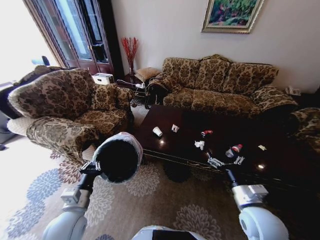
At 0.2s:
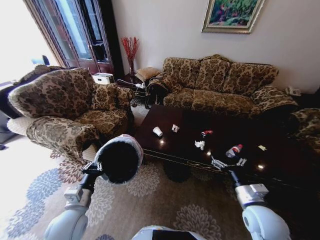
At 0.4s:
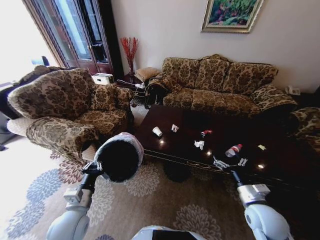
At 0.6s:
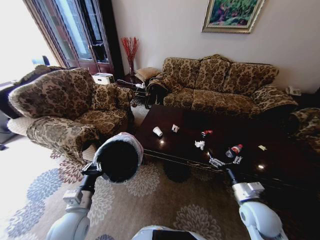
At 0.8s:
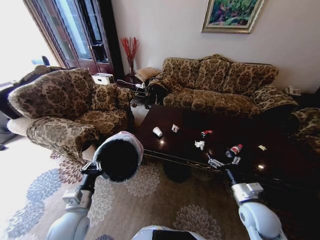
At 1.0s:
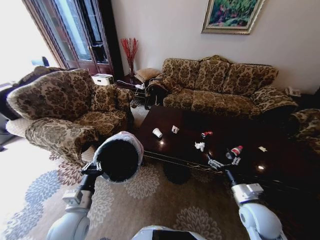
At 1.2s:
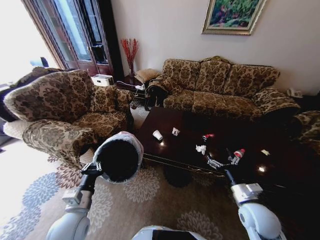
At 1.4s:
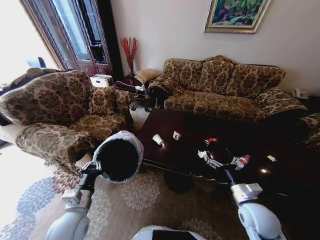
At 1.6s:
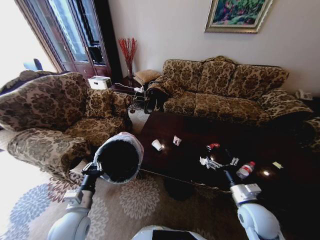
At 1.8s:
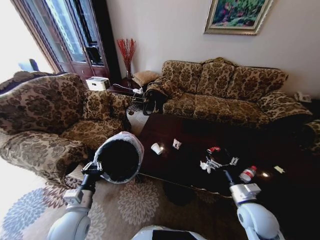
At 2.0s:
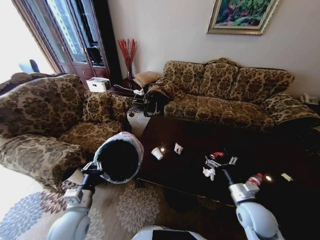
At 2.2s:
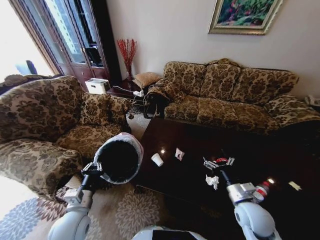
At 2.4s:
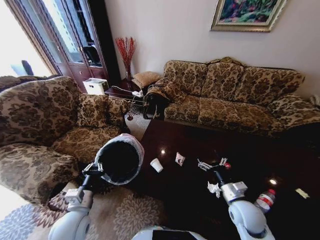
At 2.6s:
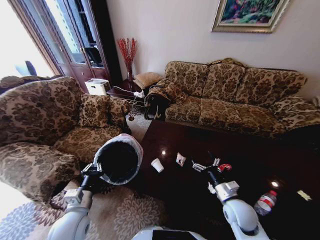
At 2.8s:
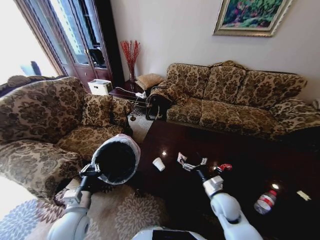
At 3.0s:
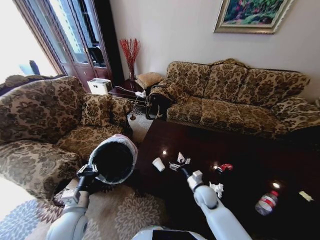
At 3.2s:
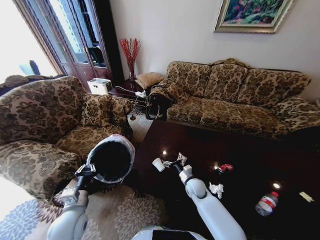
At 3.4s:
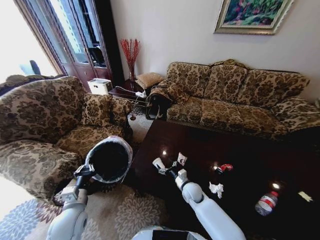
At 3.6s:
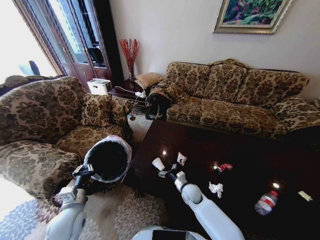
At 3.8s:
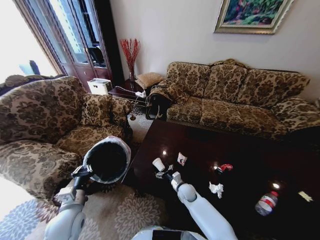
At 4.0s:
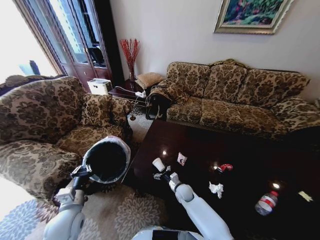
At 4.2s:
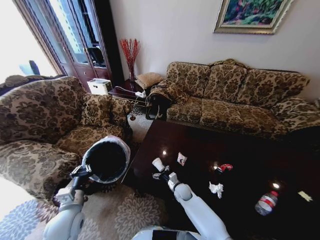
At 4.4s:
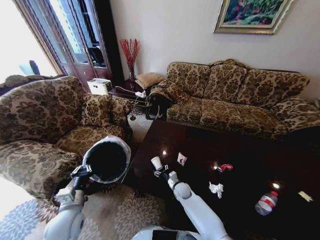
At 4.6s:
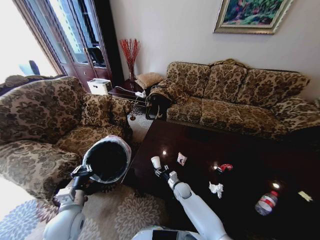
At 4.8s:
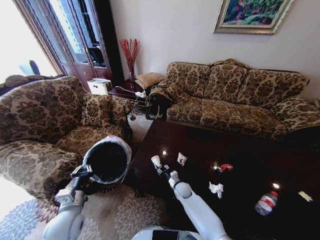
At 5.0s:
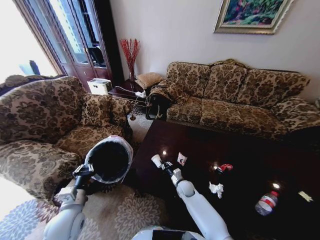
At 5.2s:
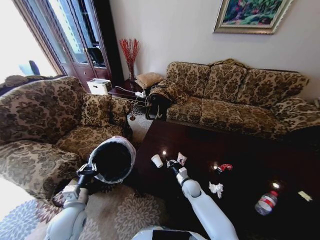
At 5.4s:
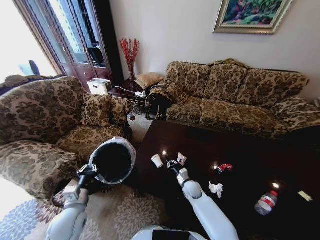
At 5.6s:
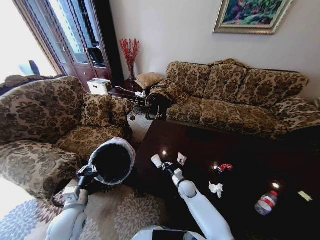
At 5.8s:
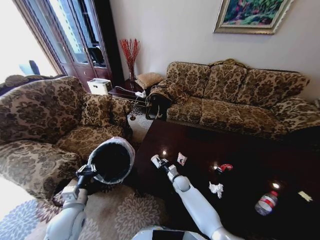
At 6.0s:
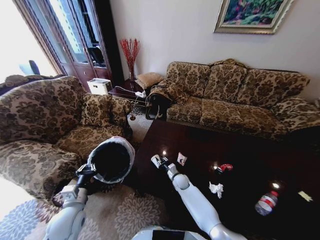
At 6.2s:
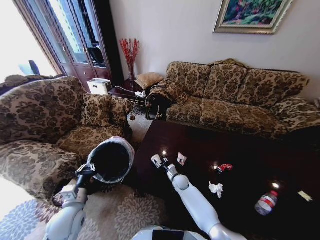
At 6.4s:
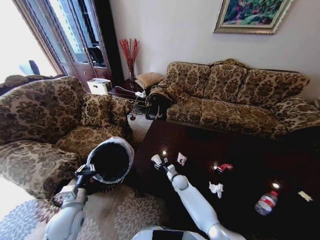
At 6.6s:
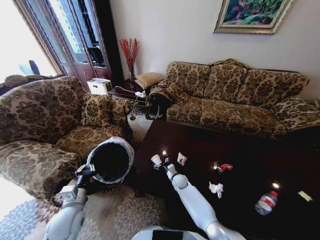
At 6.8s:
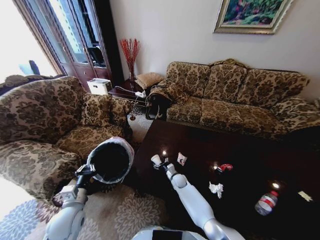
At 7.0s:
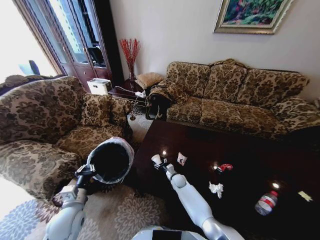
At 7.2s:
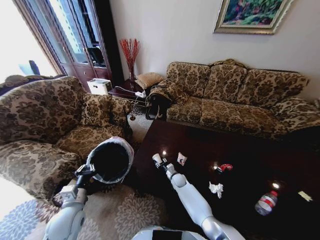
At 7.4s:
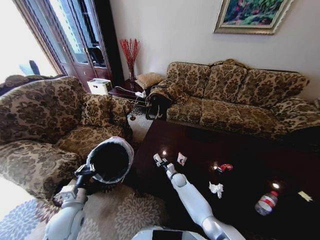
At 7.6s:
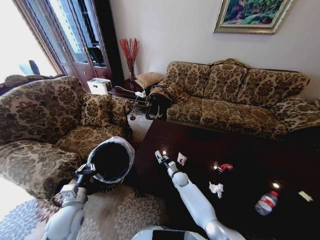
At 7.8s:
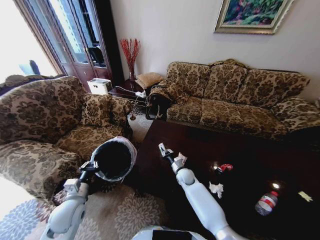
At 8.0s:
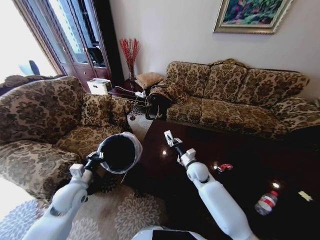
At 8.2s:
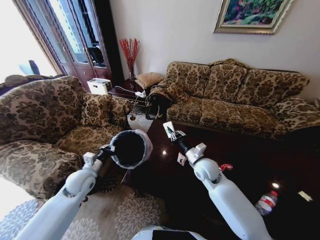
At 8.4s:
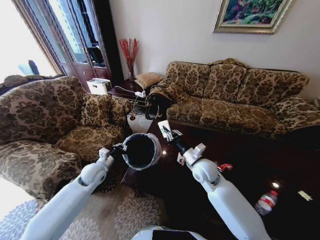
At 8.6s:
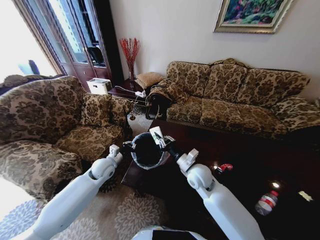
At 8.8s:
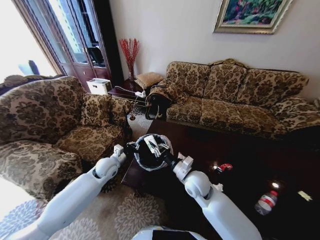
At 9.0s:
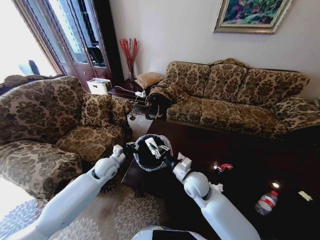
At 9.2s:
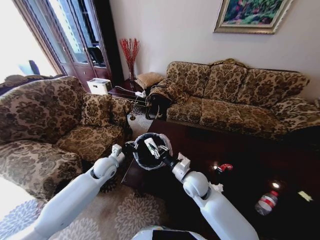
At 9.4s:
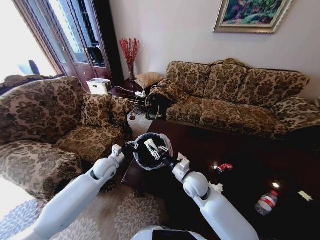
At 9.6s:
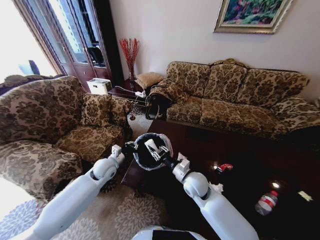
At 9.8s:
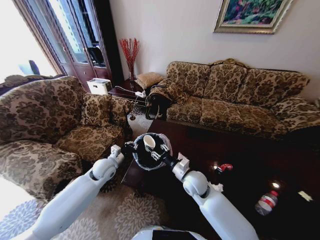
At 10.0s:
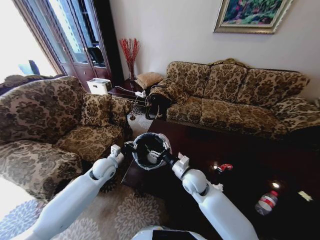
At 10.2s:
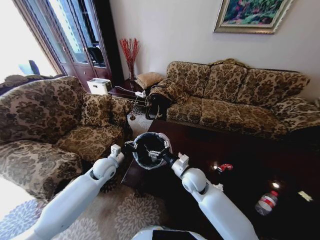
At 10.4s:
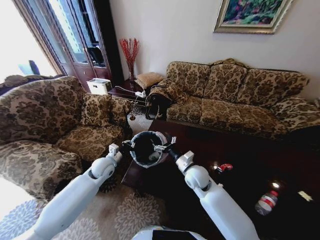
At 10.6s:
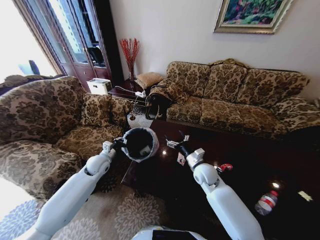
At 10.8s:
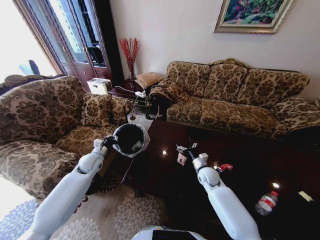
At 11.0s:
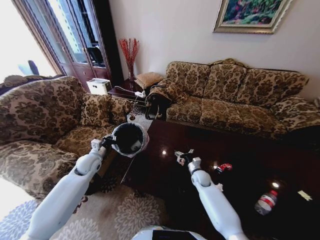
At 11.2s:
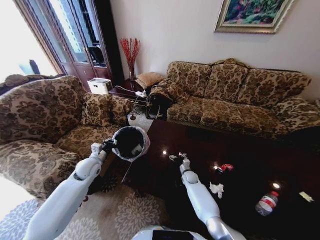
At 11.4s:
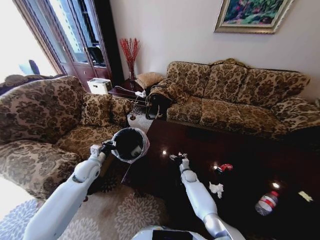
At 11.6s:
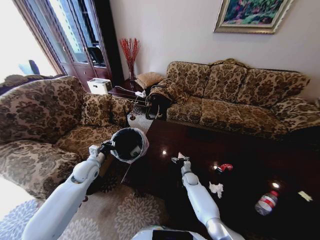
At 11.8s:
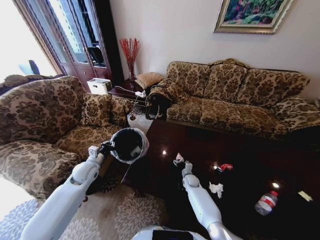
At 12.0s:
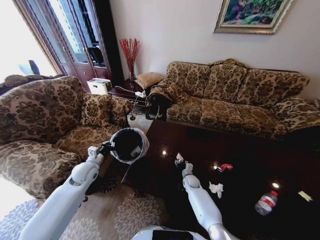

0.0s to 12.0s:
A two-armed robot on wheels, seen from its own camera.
Task of the whole recording: Move to the front of the table and place the trash on the table into the trash bin.
0.0s to 1.6s: The right gripper changes place by about 5 cm.
1.6s to 3.0s: The right gripper travels to the left, downward and forward by approximately 20 cm.
3.0s to 4.4s: The right gripper shifts about 15 cm downward, to the left and forward.
4.4s to 6.0s: The right gripper closes.
6.0s to 7.6s: The right gripper opens, then closes once more.
7.6s to 9.0s: The left gripper goes some 20 cm forward; the right gripper goes approximately 25 cm upward and backward.
9.0s to 10.4s: The right gripper opens up.
10.4s to 12.0s: The left gripper goes roughly 5 cm to the left. The right gripper heads downward, covering about 25 cm.

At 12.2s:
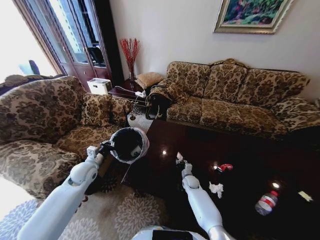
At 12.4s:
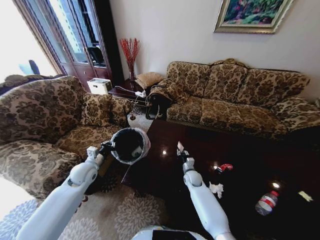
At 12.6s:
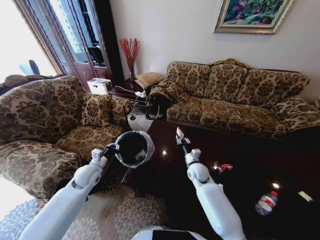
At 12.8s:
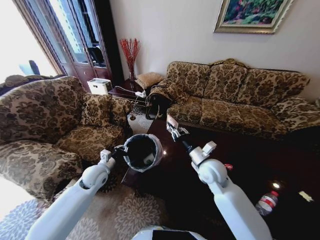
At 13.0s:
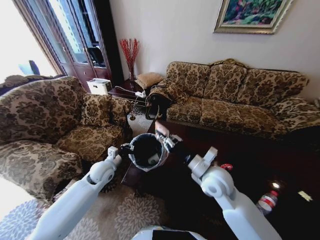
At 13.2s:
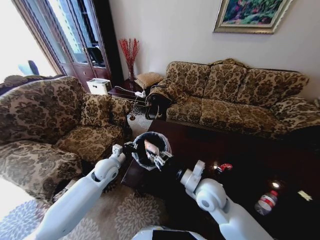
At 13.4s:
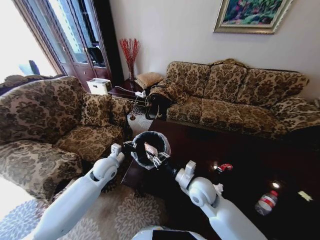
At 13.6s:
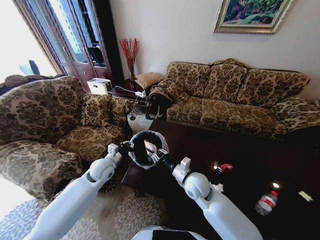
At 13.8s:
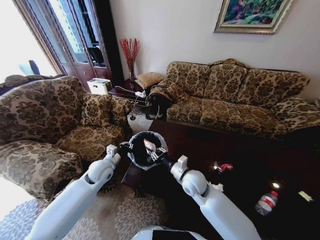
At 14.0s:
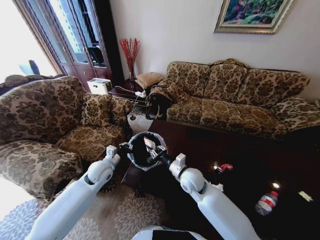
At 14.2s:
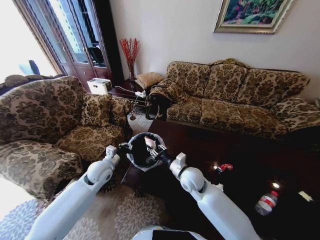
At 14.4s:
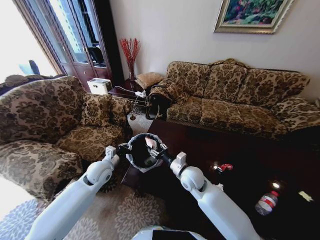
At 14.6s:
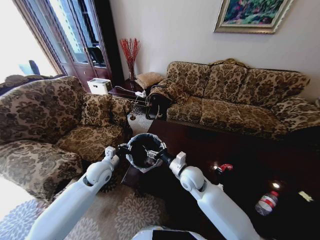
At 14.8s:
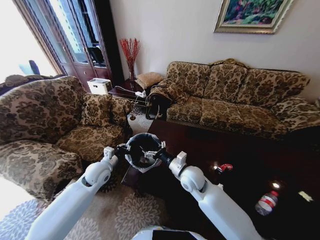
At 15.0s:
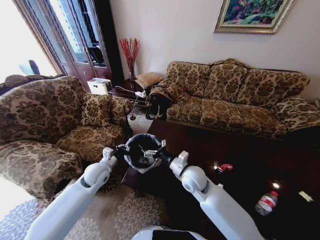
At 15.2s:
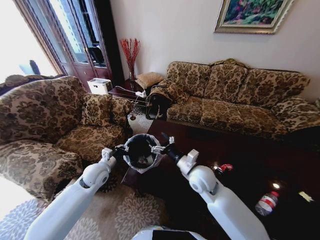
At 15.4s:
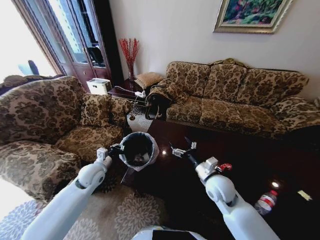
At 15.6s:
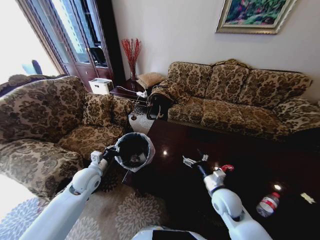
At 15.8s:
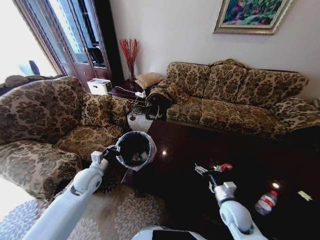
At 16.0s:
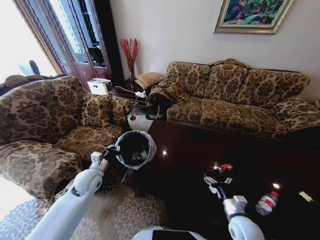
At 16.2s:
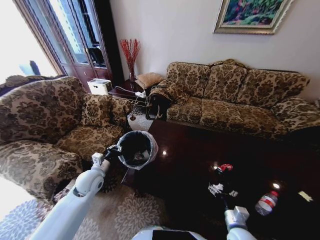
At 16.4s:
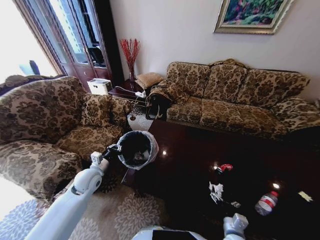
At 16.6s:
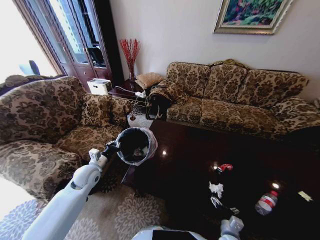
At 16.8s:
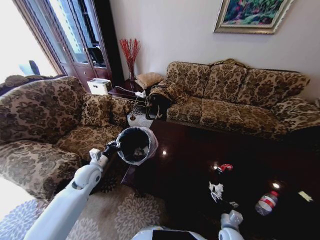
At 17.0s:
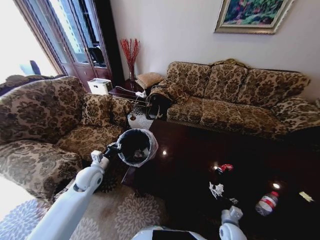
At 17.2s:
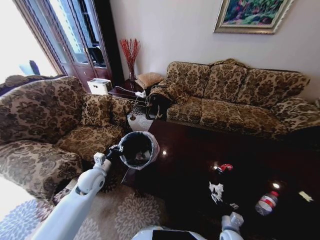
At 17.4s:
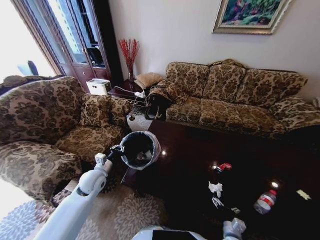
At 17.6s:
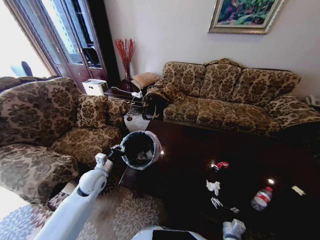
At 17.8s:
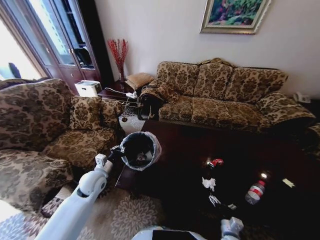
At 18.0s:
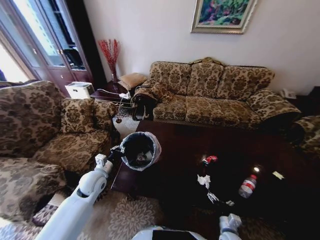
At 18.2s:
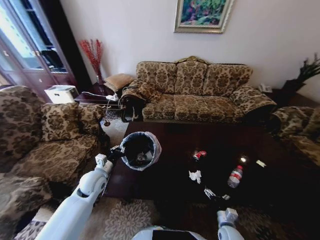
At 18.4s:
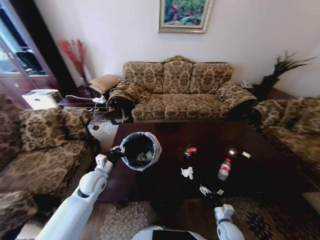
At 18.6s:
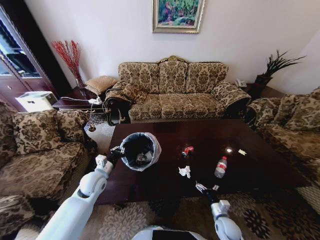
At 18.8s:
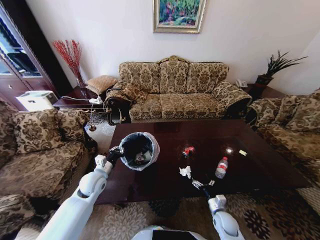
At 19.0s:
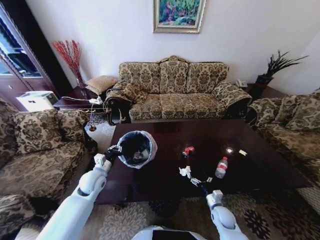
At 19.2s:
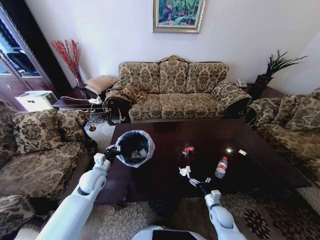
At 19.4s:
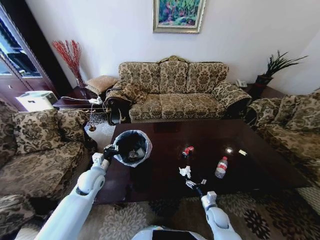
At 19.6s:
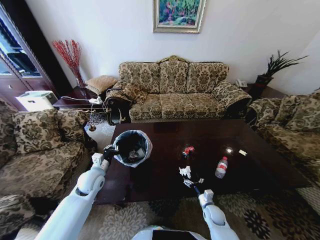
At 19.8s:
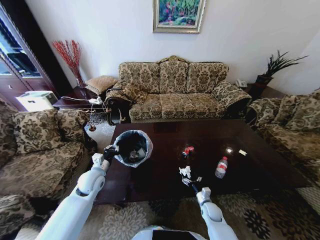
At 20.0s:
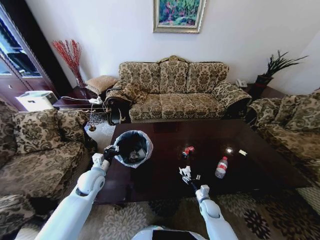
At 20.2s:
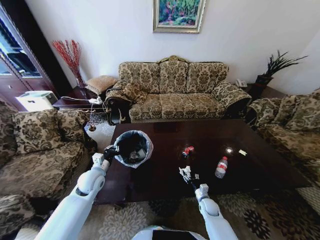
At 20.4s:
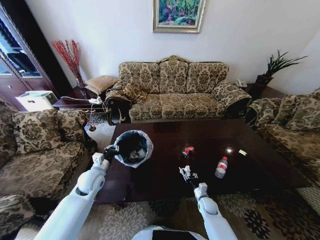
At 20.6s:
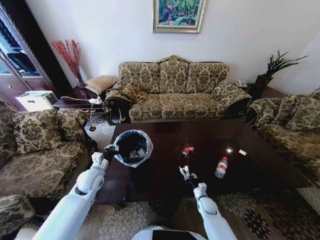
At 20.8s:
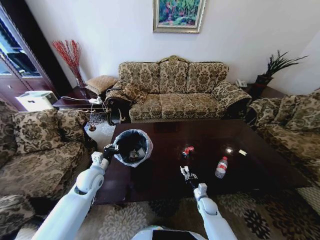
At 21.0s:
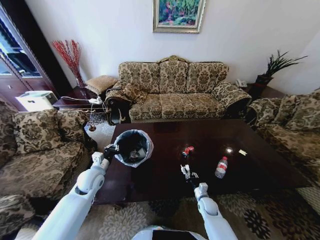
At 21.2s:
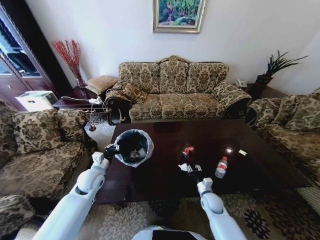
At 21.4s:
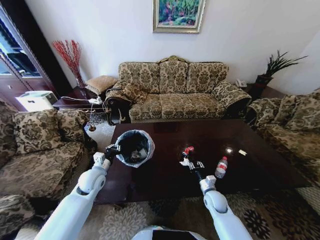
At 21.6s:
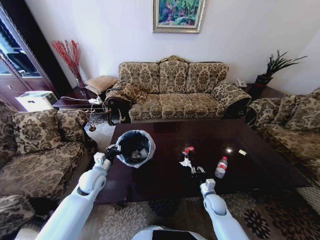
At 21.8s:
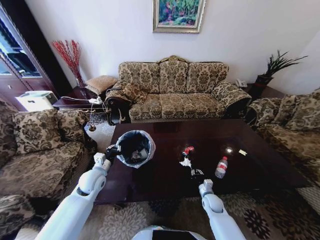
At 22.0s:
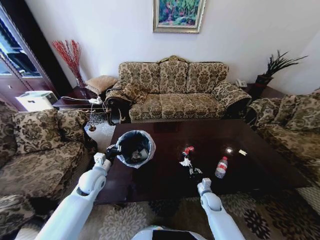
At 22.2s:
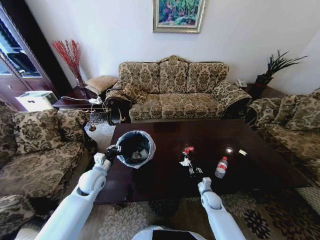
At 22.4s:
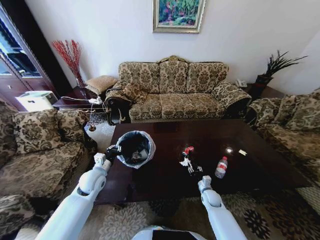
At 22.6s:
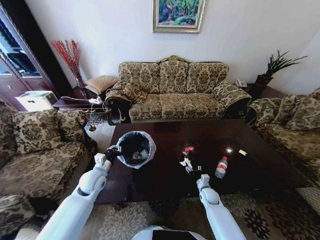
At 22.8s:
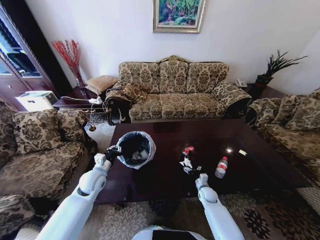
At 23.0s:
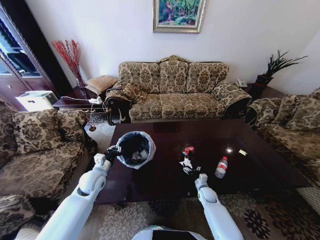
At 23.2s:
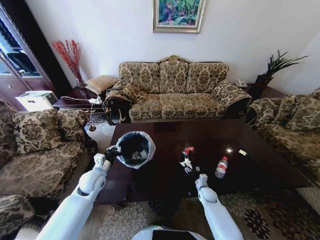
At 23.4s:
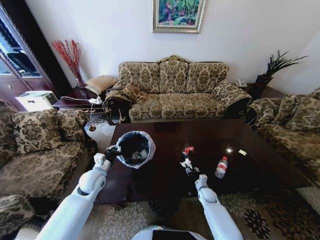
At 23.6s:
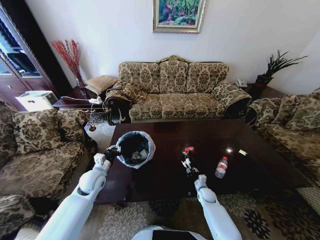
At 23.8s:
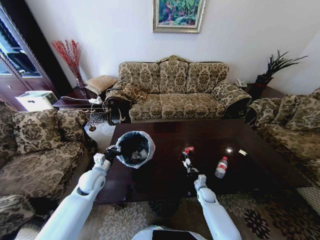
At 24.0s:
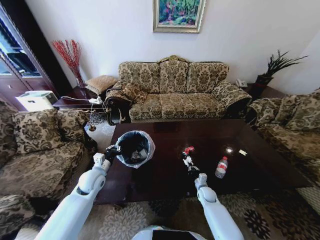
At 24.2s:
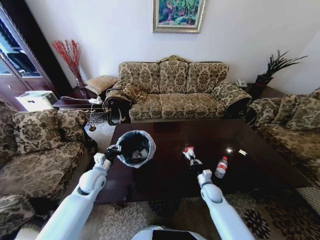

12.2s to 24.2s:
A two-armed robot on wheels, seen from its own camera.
Task of the whole recording: Move to the front of the table and place the trash on the table into the trash bin.
12.2s to 13.8s: The right gripper heads upward, covering about 25 cm. The left gripper is displaced to the right by about 10 cm.
13.8s to 15.2s: The right gripper opens up.
15.2s to 16.6s: The right gripper goes approximately 35 cm downward, backward and to the right.
16.6s to 18.2s: The right gripper goes forward and backward, some 5 cm each way, reversing 2 times.
18.2s to 19.8s: The right gripper goes about 10 cm forward.
19.8s to 21.2s: The right gripper goes some 5 cm upward, and closes its fingers.
21.2s to 22.6s: The right gripper ends up about 5 cm from where it was.
22.6s to 24.2s: The right gripper shifts roughly 5 cm upward, and closes its fingers.
